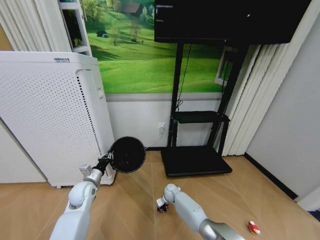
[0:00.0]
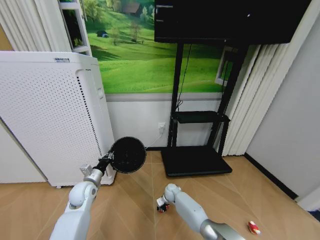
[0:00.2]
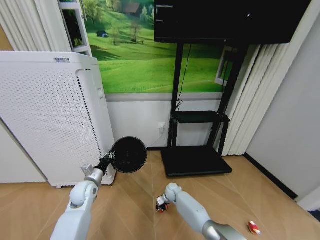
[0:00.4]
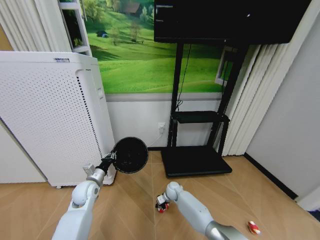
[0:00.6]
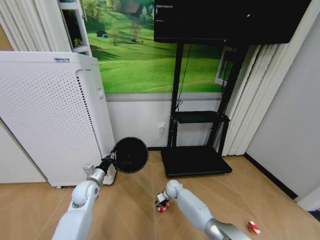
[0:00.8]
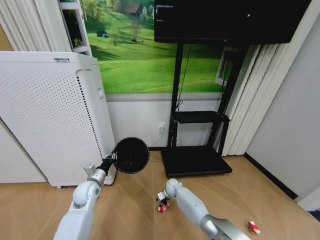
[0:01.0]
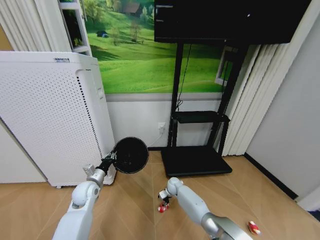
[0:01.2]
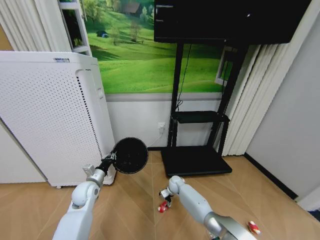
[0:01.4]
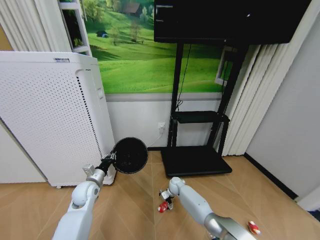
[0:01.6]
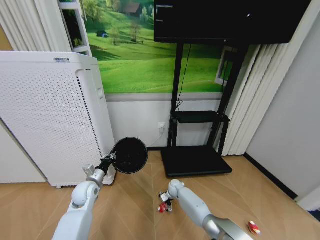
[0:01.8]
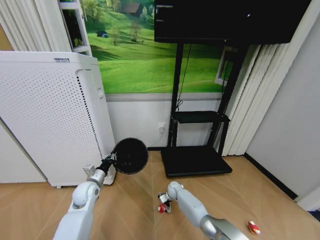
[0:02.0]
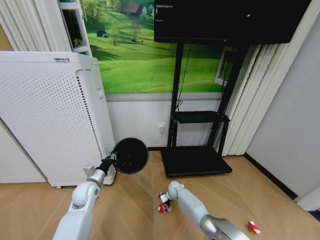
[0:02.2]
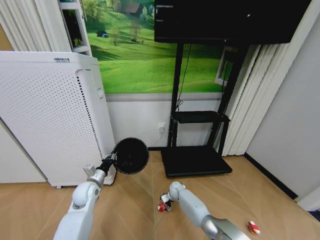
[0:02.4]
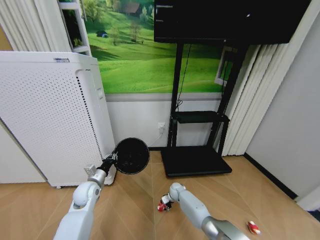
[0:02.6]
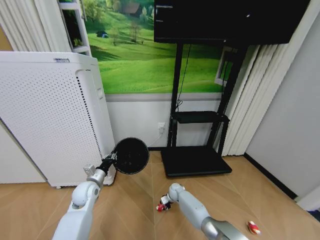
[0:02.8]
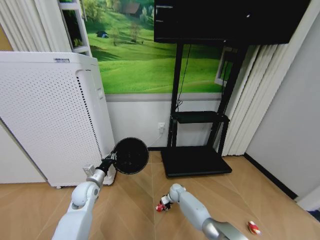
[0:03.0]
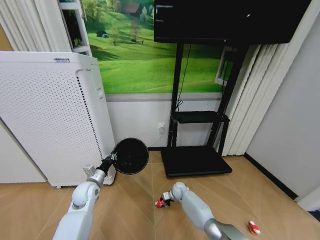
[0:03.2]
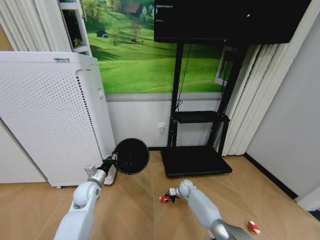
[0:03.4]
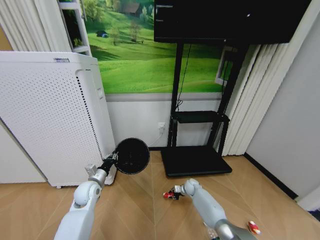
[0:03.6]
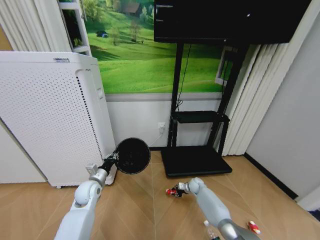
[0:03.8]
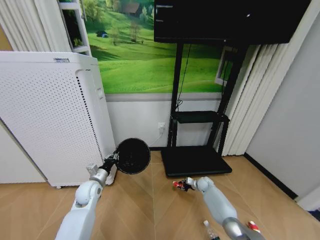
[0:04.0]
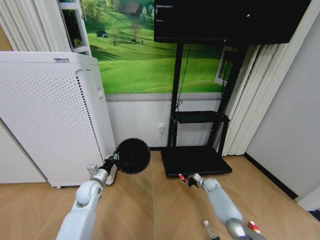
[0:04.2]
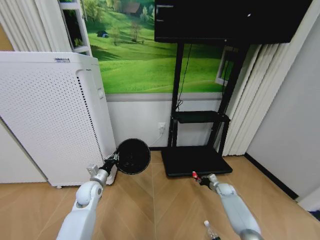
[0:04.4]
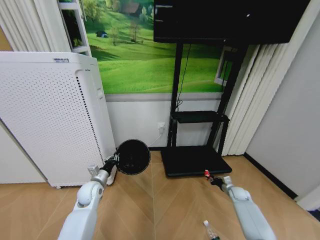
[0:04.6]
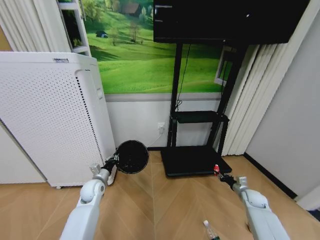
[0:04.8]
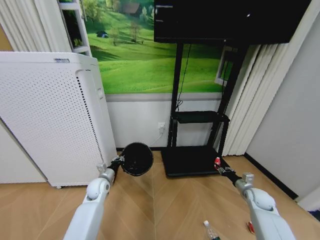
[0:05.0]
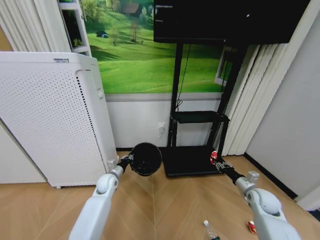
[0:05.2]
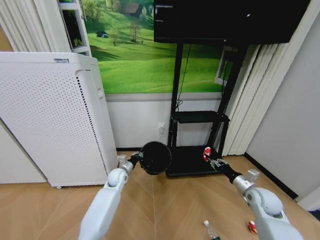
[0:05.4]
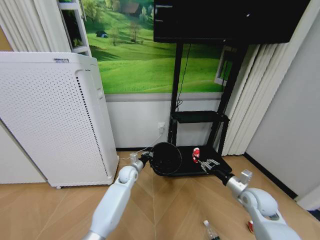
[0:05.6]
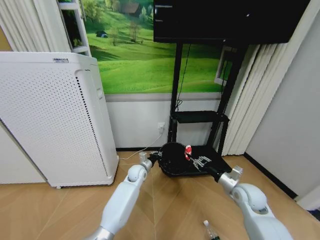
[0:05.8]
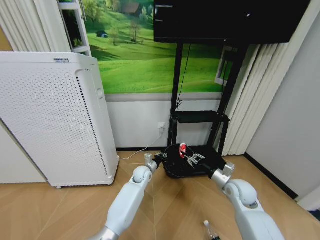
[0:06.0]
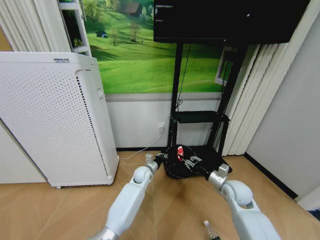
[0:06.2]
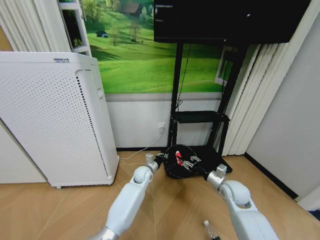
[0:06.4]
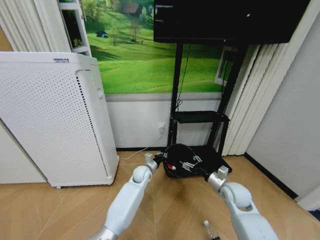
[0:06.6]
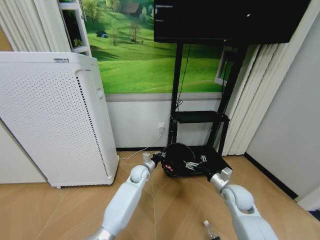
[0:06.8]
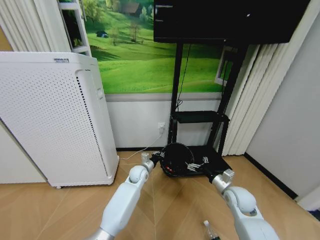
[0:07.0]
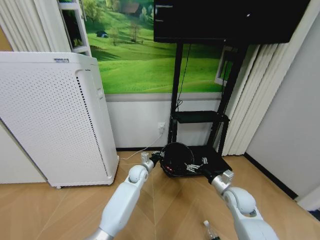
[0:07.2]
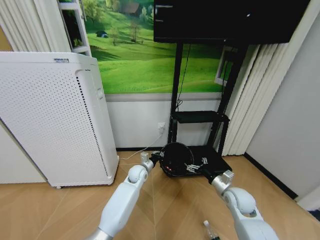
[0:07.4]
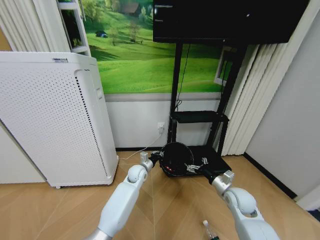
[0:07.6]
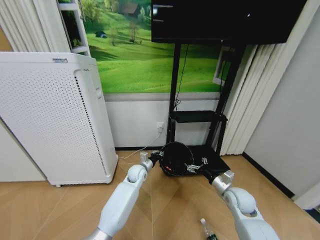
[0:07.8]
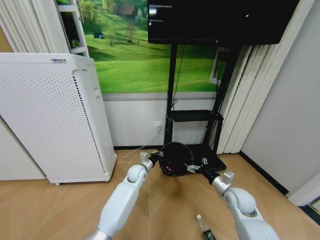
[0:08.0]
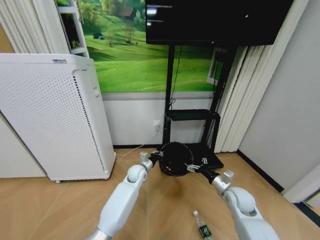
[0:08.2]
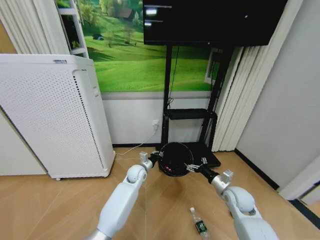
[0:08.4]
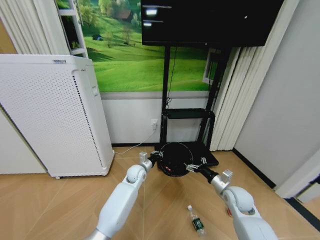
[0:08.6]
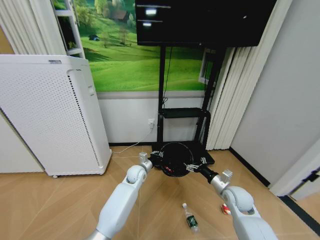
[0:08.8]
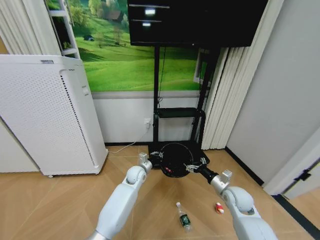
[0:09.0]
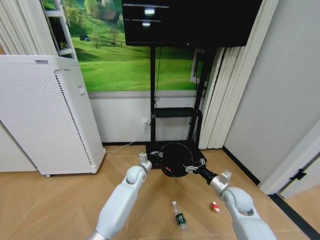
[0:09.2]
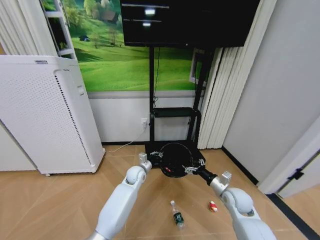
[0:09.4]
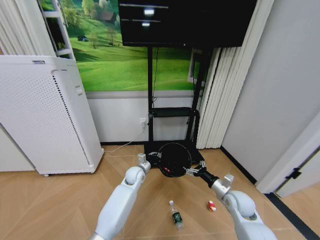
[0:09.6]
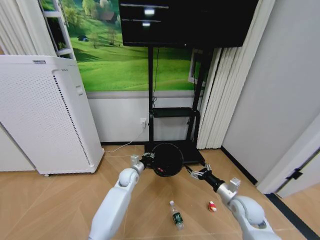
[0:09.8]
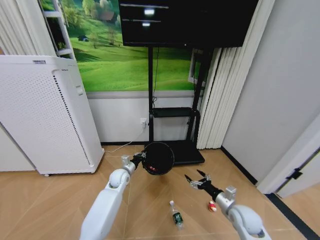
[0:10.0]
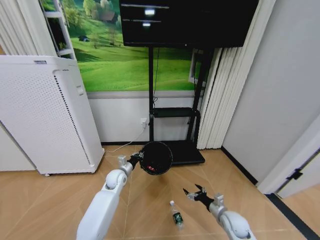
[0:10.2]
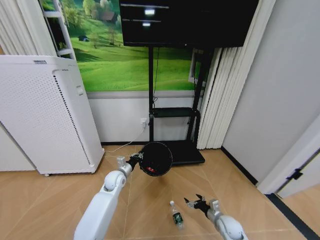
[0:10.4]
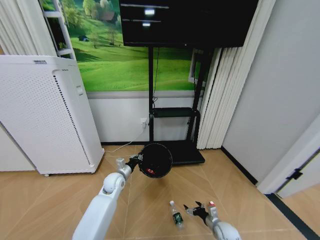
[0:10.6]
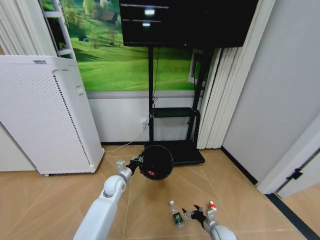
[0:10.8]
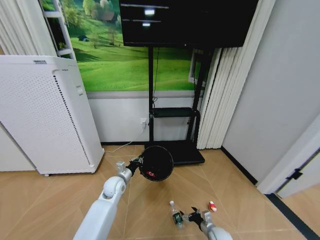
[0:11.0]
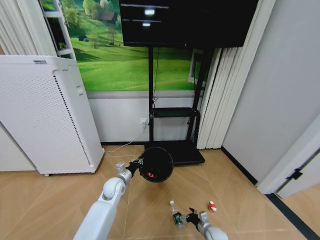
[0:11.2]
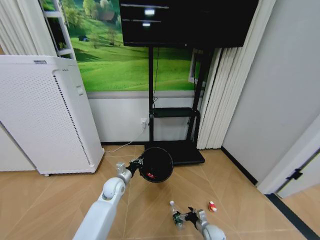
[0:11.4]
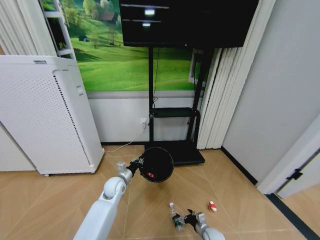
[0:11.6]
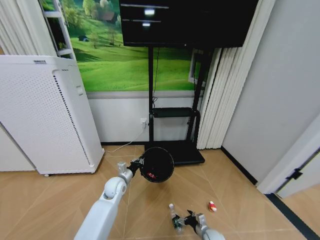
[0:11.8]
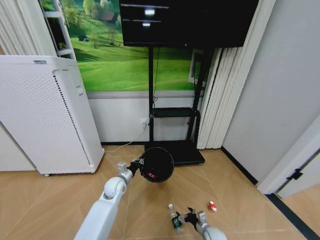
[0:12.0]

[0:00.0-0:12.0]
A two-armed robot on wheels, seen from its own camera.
Task of the whole recording: Pick up the trash bin and place the garbage on the floor into it.
0:00.0 to 0:01.6: The right gripper changes place by some 5 cm, and opens.
0:01.6 to 0:03.0: The right gripper shifts by approximately 5 cm, and closes.
0:03.0 to 0:04.4: The right gripper goes approximately 30 cm to the right.
0:04.4 to 0:06.0: The left gripper is displaced to the right and forward by about 25 cm; the right gripper moves upward, backward and to the left, some 25 cm.
0:06.0 to 0:07.6: The right gripper opens.
0:09.0 to 0:10.4: The left gripper travels to the left by about 10 cm; the right gripper goes about 20 cm downward.
0:10.4 to 0:12.0: The right gripper goes about 10 cm downward and to the left.

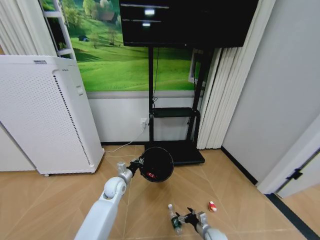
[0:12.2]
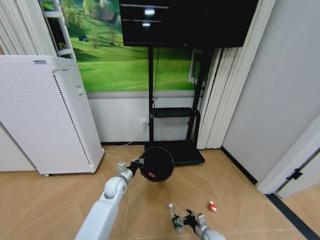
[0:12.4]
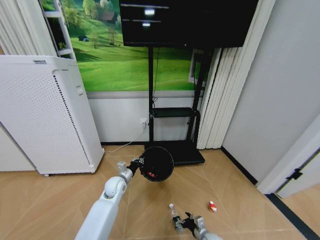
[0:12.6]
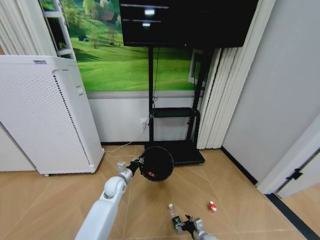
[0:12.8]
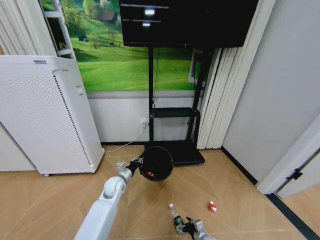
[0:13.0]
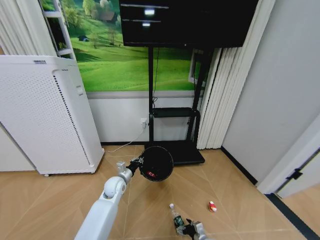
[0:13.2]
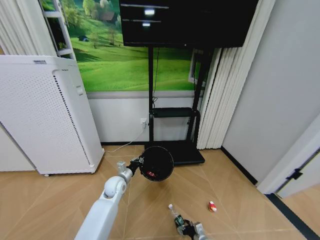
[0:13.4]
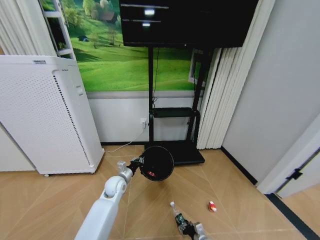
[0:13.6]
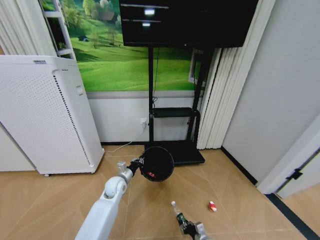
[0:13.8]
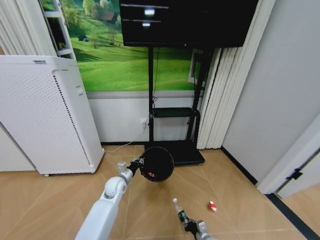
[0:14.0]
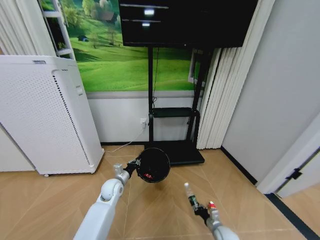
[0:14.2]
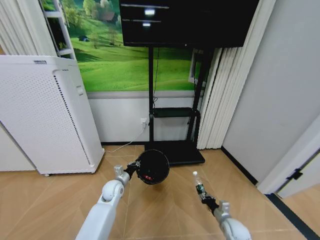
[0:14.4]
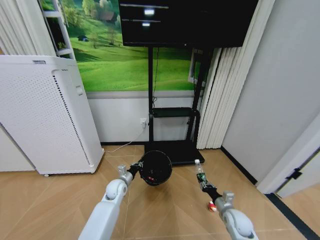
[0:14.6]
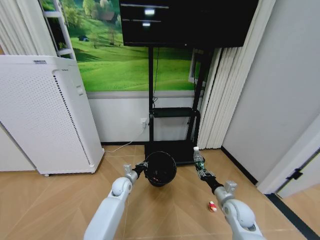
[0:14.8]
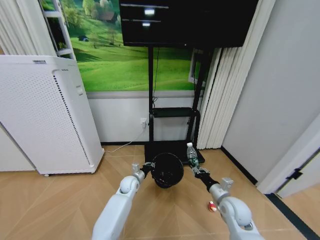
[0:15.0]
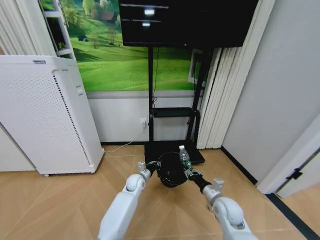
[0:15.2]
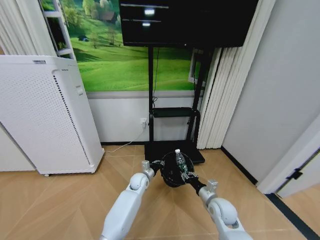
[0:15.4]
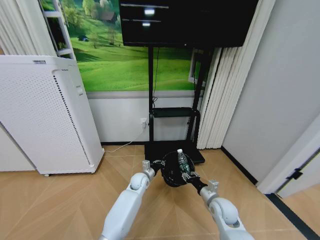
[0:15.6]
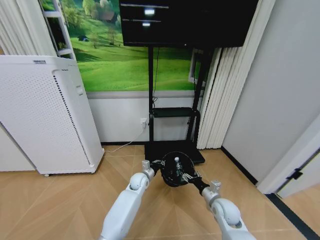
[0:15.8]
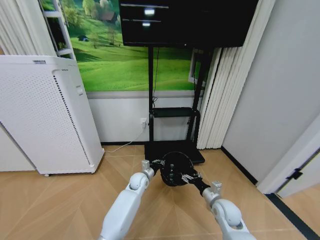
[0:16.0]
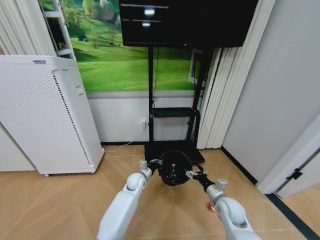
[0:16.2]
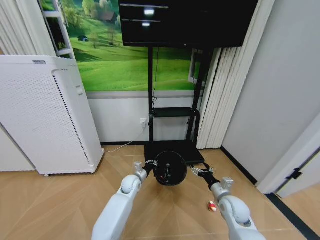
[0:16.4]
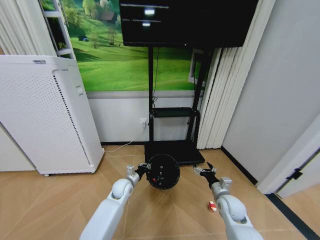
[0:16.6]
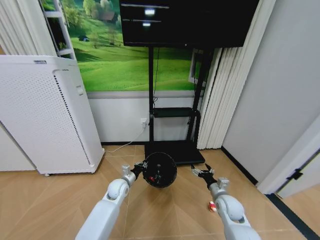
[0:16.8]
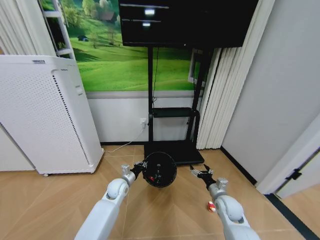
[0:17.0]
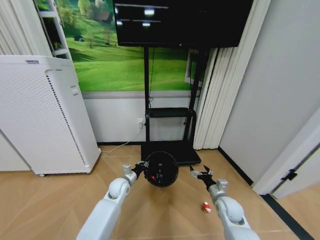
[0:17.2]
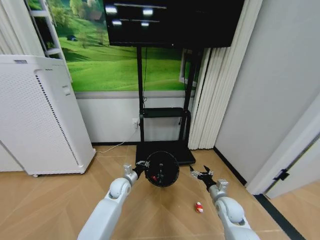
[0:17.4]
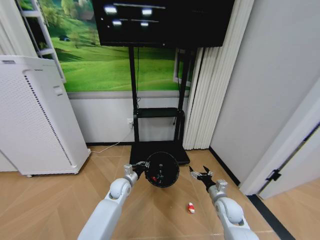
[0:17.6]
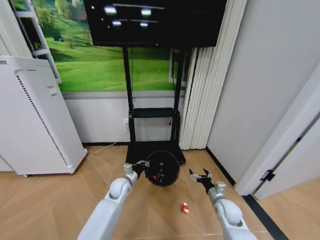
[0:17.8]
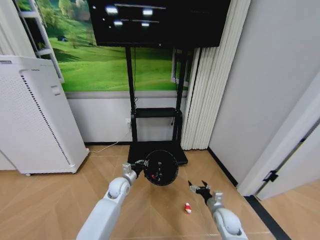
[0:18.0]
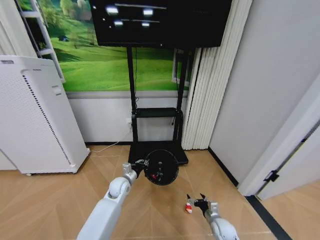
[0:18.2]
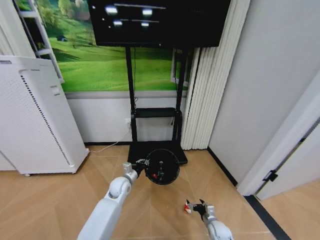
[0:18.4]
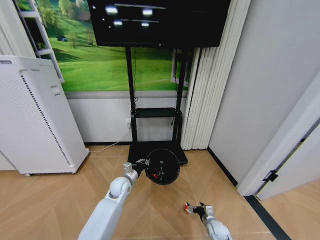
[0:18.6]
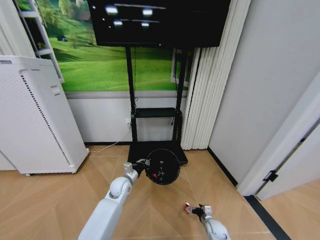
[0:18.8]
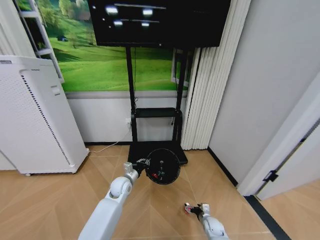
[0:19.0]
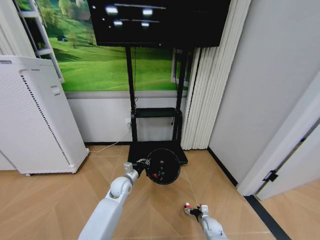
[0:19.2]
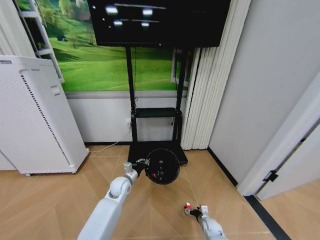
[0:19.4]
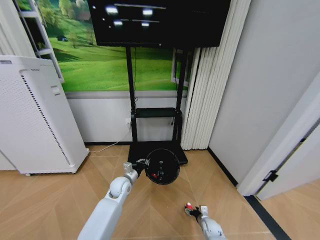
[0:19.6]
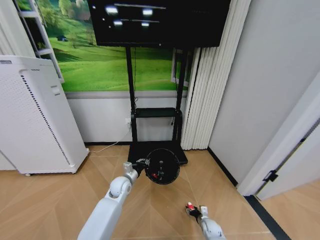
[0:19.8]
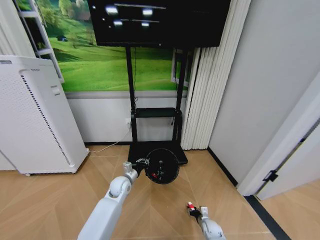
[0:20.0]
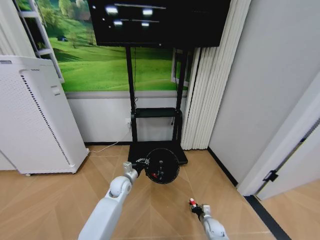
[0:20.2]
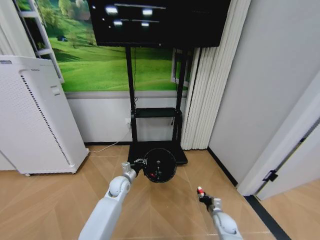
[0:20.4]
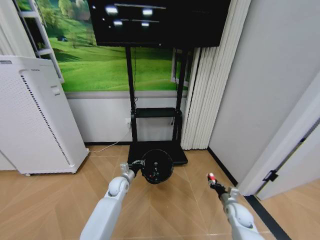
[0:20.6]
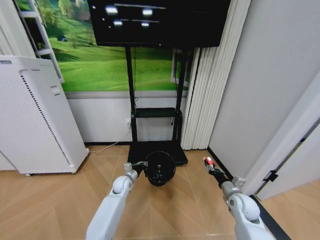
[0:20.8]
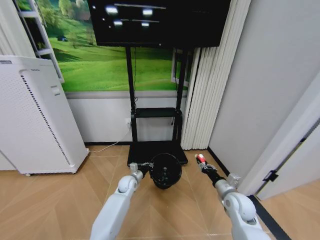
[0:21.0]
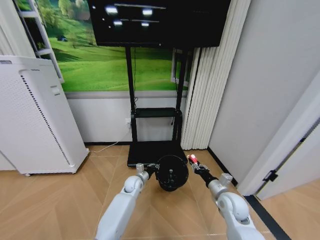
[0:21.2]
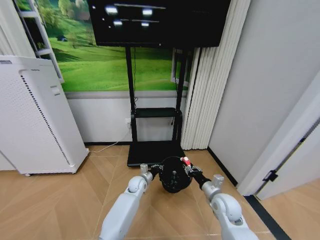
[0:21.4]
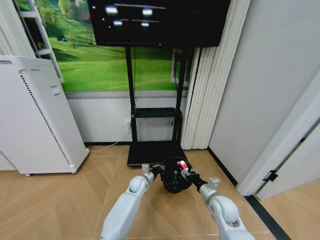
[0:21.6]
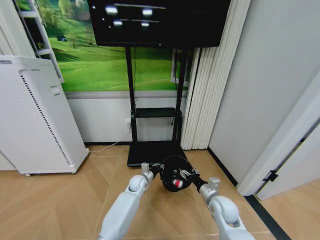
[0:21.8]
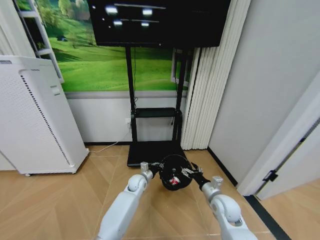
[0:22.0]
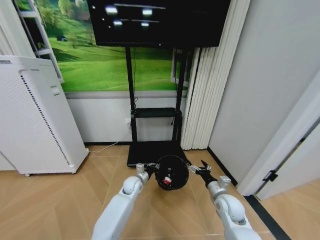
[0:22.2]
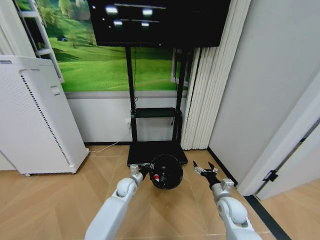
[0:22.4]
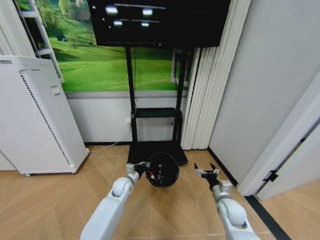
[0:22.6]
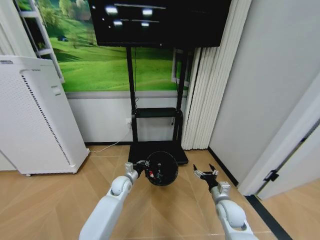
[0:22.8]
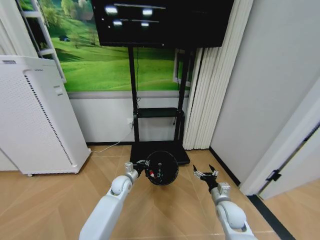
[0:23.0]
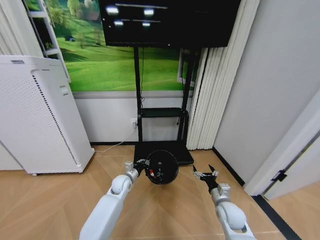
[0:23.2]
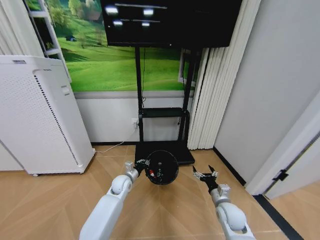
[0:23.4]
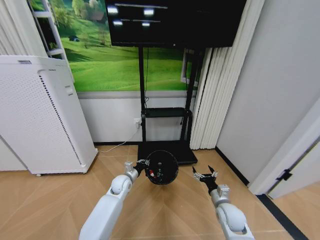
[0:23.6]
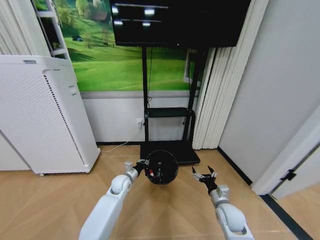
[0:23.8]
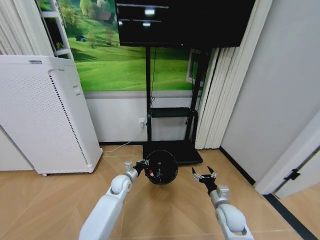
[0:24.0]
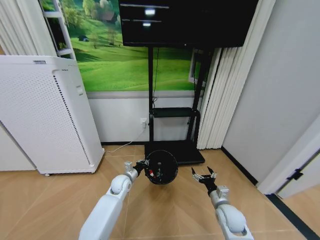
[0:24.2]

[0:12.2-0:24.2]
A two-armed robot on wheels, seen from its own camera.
Task of the whole recording: Pick up the trash bin and place the garbage on the floor into it.
0:12.2 to 0:13.8: The right gripper ends up some 5 cm from where it was, and closes its fingers.
0:13.8 to 0:15.2: The right gripper moves upward, roughly 25 cm; the left gripper goes approximately 10 cm to the right.
0:15.2 to 0:16.6: The left gripper travels to the left by about 5 cm. Meanwhile the right gripper opens up.
0:16.6 to 0:18.2: The right gripper shifts some 10 cm downward.
0:18.2 to 0:19.8: The right gripper travels downward by approximately 10 cm, and closes up.
0:19.8 to 0:21.2: The right gripper heads upward, covering approximately 30 cm, and closes its fingers; the left gripper goes some 10 cm to the right and downward.
0:21.2 to 0:22.6: The left gripper goes about 5 cm to the left. Meanwhile the right gripper opens up.
